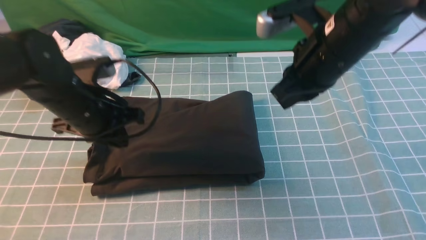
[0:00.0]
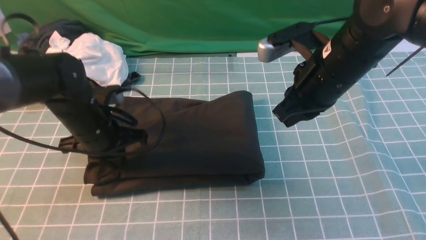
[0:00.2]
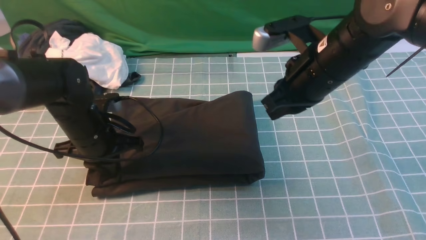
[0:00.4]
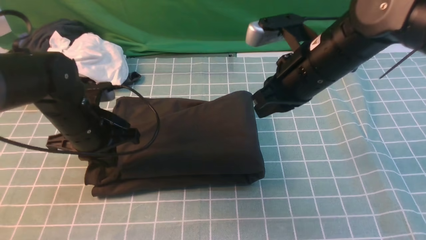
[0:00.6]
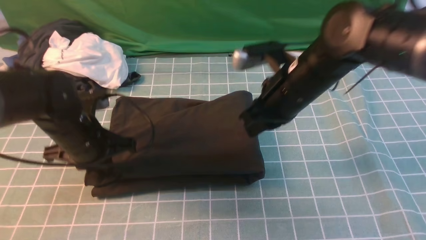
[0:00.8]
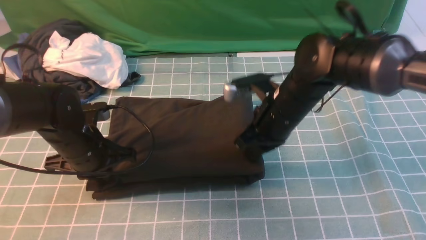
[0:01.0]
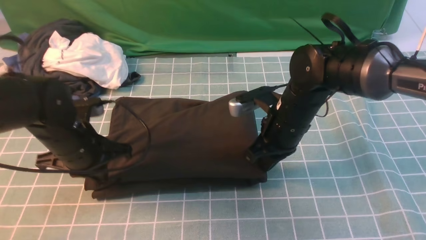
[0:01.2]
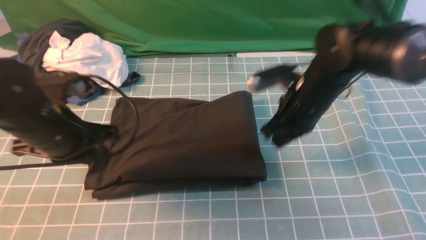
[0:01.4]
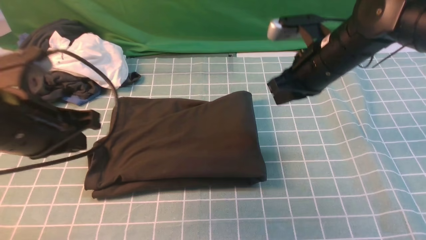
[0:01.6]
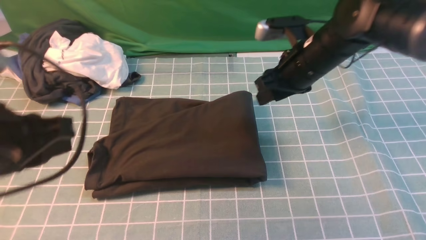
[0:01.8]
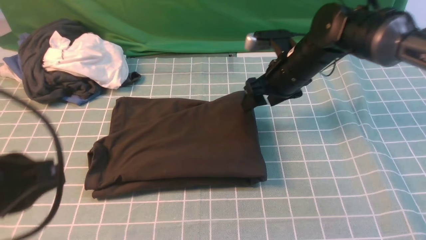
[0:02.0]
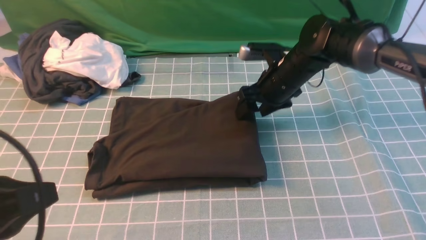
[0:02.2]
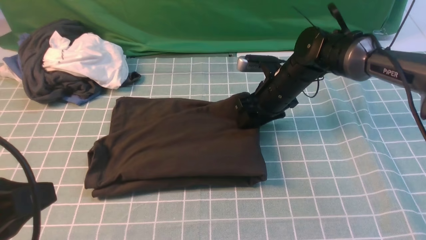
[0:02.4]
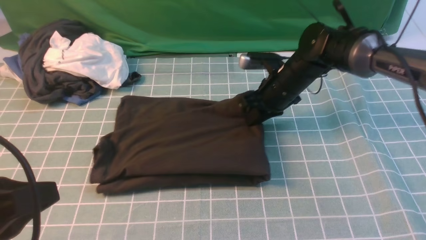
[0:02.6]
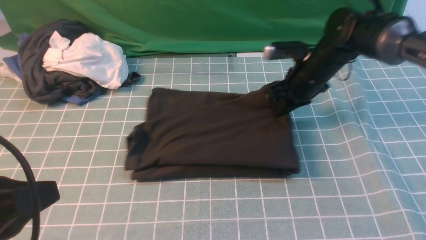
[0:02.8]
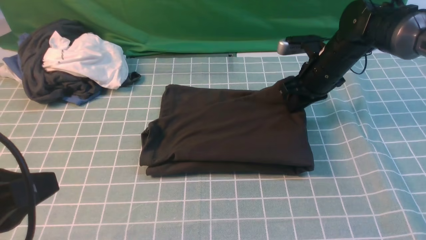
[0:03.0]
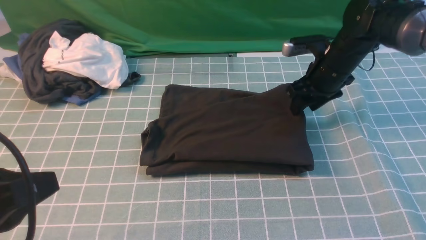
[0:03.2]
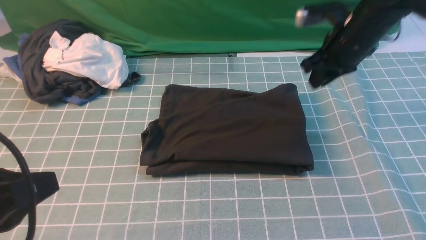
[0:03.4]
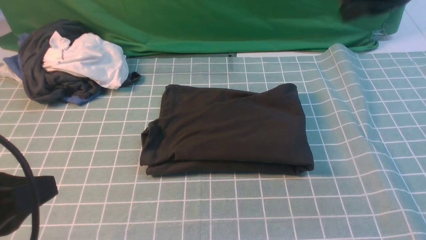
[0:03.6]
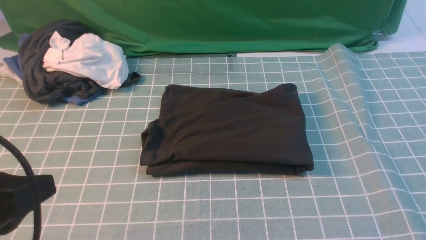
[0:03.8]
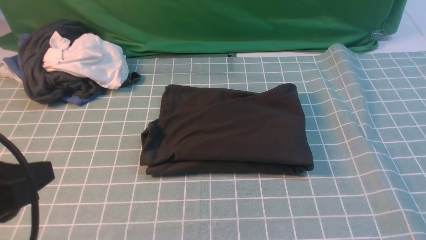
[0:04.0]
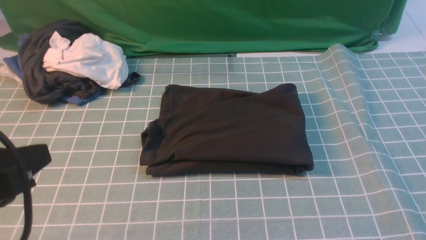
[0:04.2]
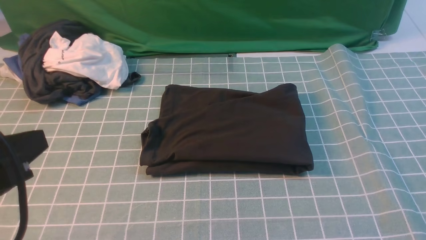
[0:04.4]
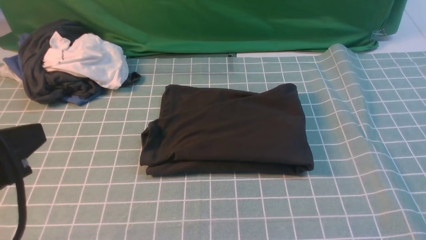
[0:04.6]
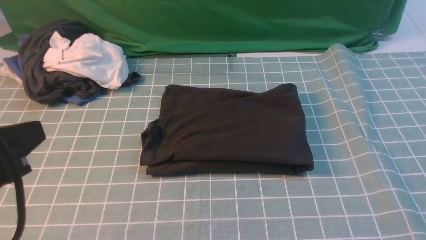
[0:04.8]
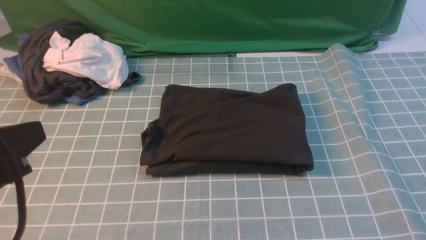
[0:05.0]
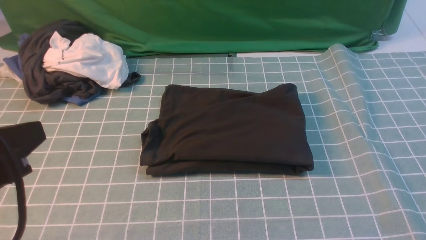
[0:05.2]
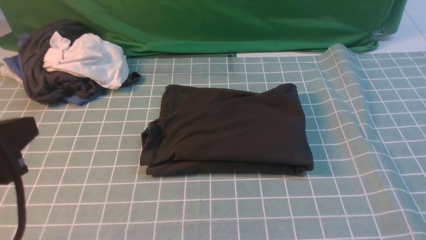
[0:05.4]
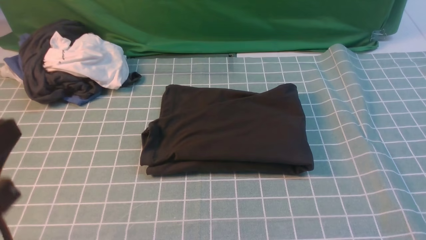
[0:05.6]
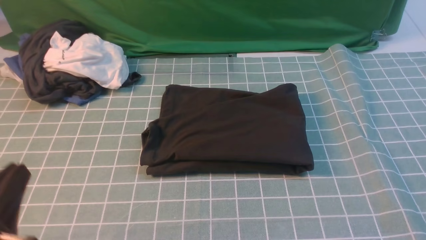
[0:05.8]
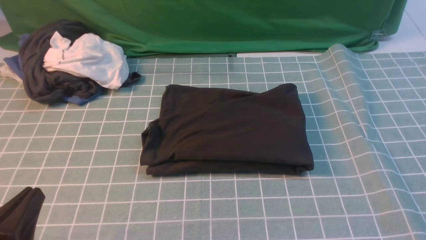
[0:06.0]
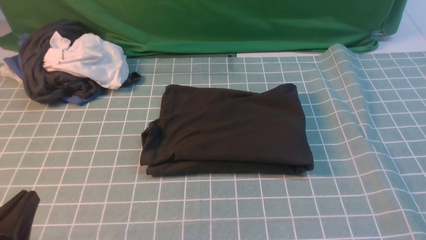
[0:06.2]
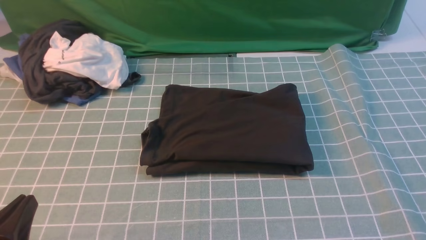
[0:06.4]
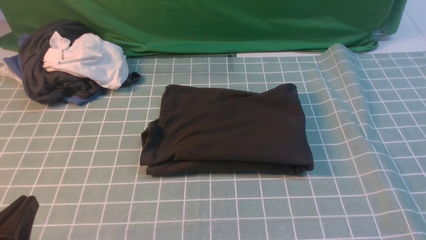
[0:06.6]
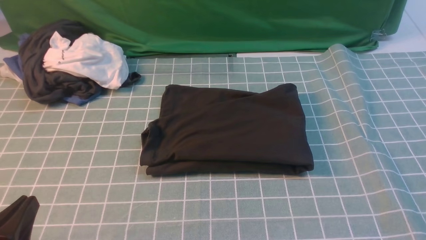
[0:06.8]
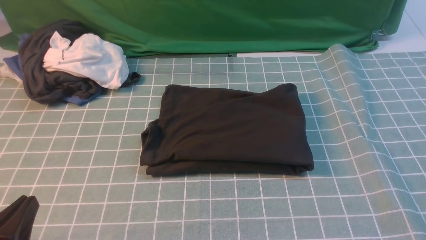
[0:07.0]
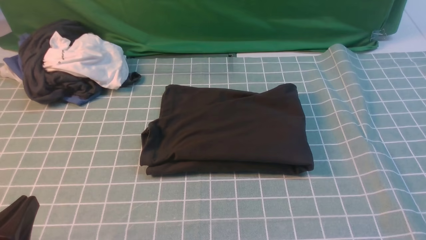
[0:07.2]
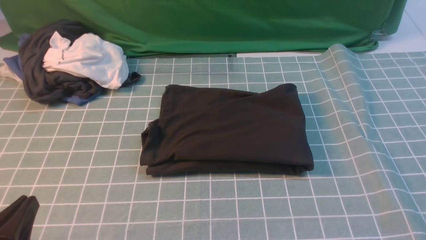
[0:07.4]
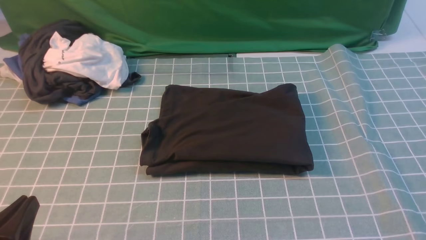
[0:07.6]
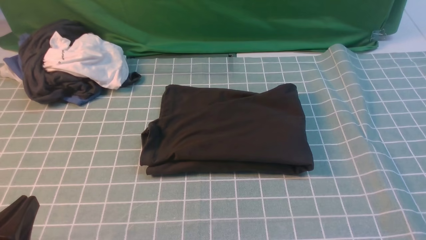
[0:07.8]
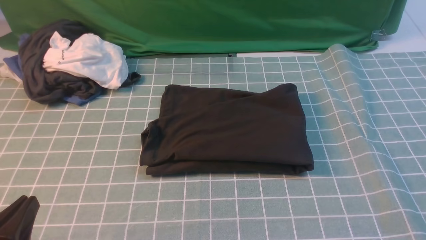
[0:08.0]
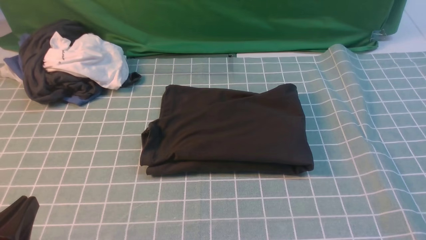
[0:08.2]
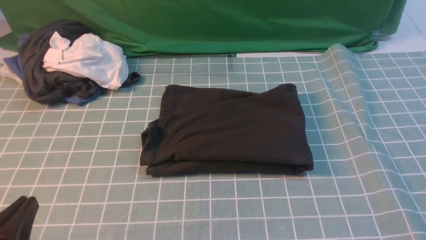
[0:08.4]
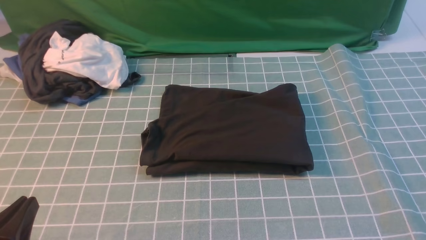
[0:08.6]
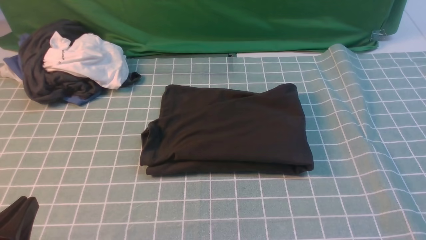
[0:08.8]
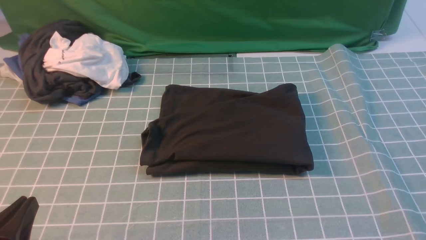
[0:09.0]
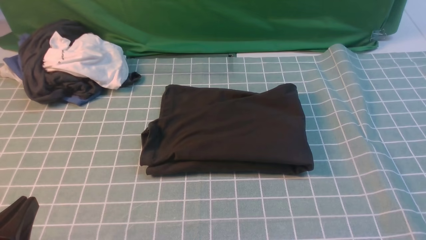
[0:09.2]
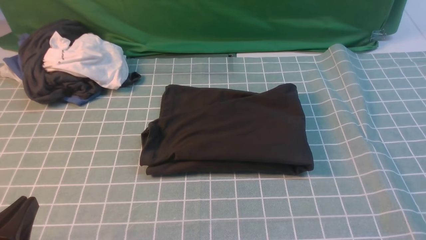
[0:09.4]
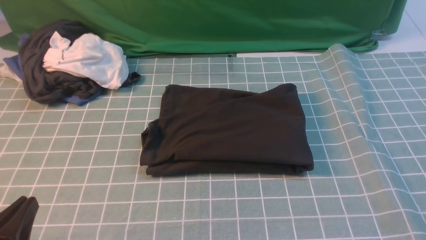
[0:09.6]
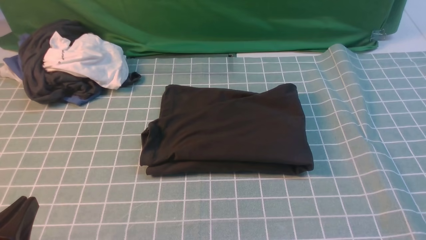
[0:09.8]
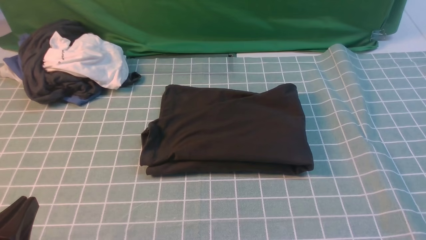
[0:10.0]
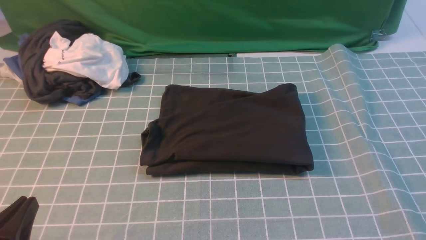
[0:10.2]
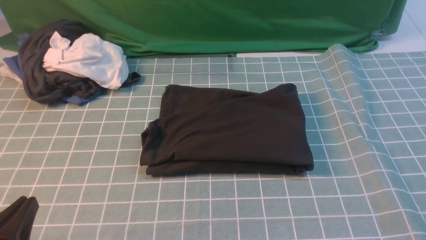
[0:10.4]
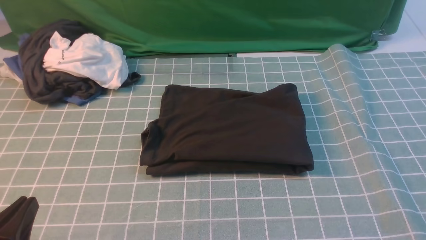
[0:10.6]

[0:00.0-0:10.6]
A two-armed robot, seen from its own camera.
0:00.0 to 0:01.6: The right gripper heads downward and forward, covering approximately 10 cm. Meanwhile the left gripper travels backward and upward by some 15 cm.
0:01.6 to 0:03.0: The right gripper heads forward and downward, covering some 10 cm, and opens and closes again; the left gripper goes approximately 10 cm backward.
0:03.0 to 0:04.6: The right gripper moves backward and upward, roughly 40 cm.
0:04.6 to 0:06.0: The left gripper shifts roughly 15 cm downward.
0:09.0 to 0:10.6: Both grippers stay about where they are.
